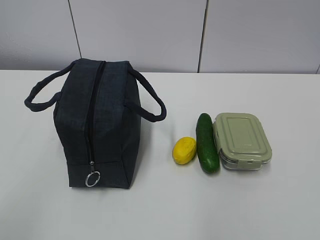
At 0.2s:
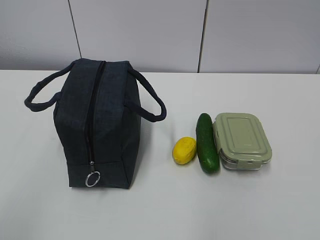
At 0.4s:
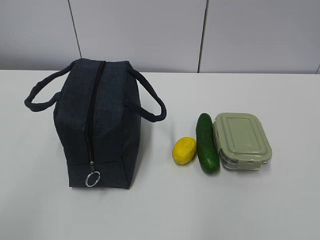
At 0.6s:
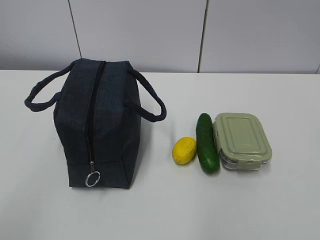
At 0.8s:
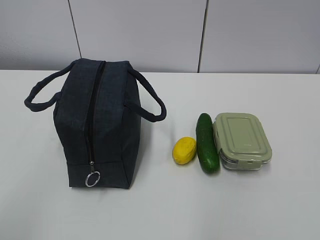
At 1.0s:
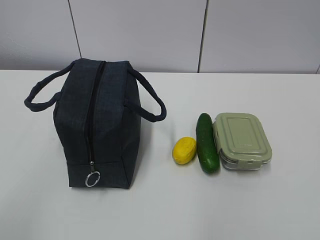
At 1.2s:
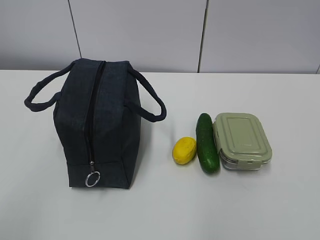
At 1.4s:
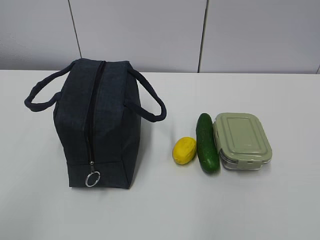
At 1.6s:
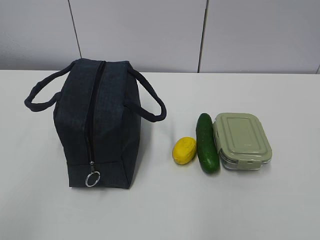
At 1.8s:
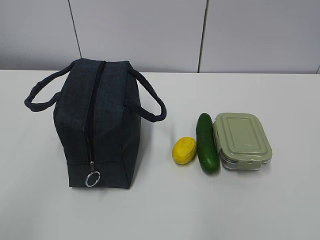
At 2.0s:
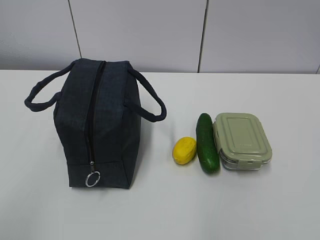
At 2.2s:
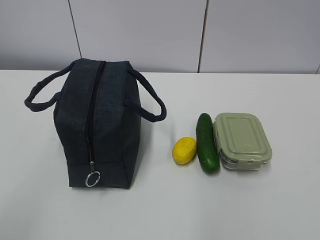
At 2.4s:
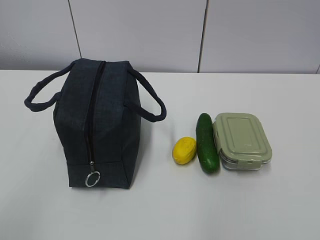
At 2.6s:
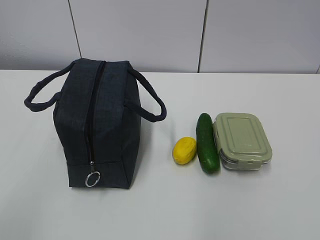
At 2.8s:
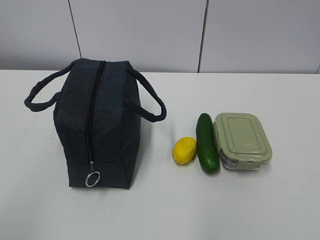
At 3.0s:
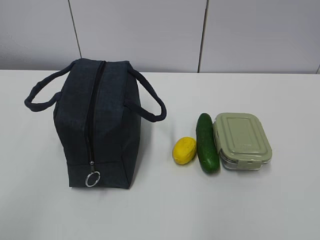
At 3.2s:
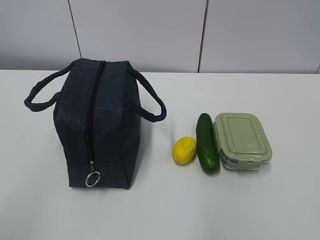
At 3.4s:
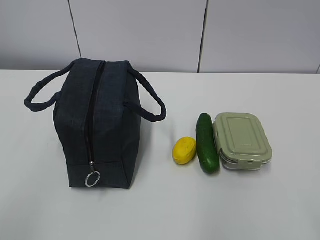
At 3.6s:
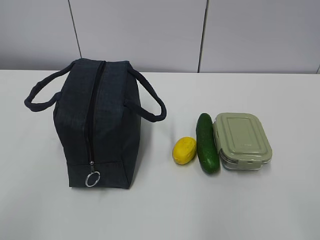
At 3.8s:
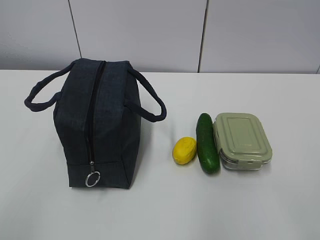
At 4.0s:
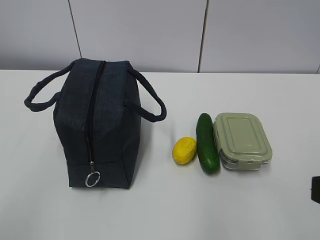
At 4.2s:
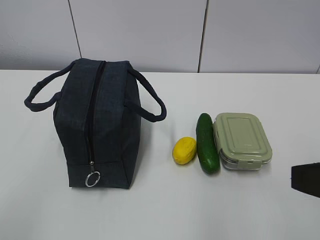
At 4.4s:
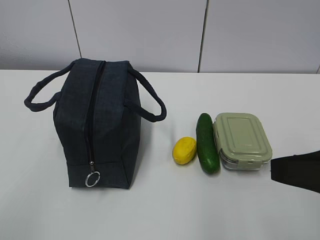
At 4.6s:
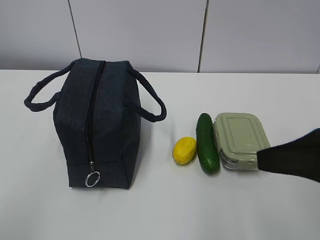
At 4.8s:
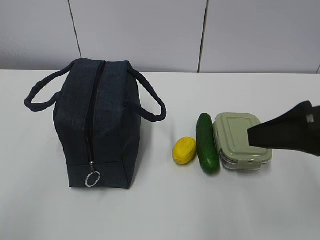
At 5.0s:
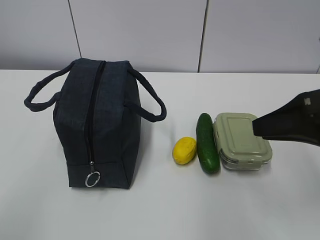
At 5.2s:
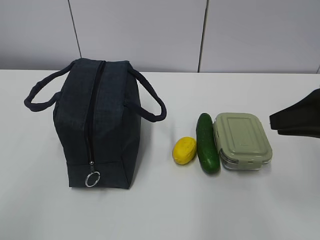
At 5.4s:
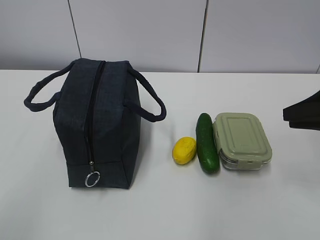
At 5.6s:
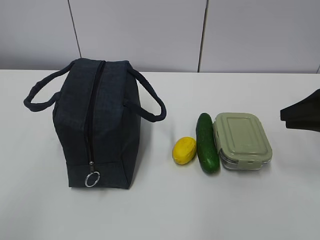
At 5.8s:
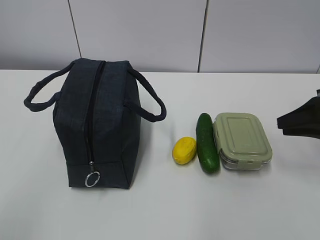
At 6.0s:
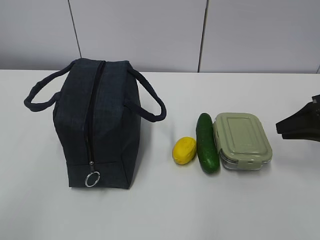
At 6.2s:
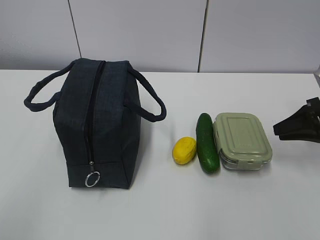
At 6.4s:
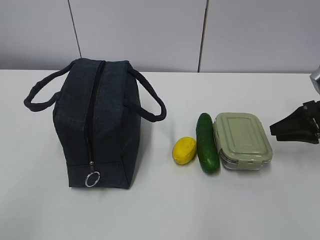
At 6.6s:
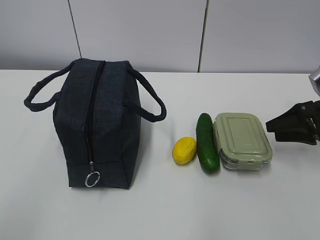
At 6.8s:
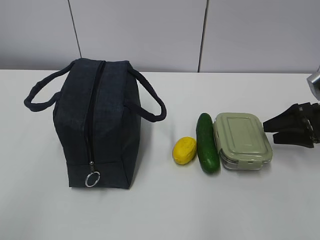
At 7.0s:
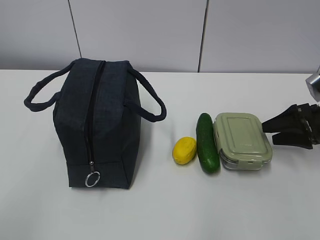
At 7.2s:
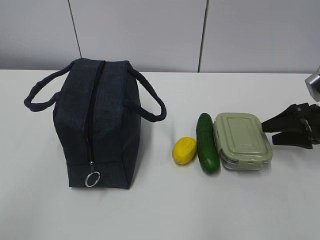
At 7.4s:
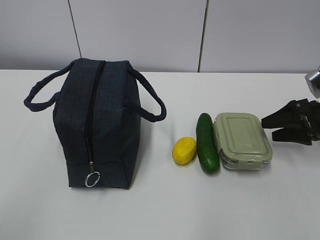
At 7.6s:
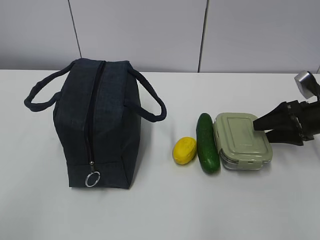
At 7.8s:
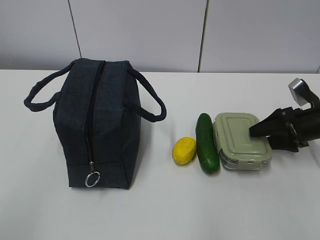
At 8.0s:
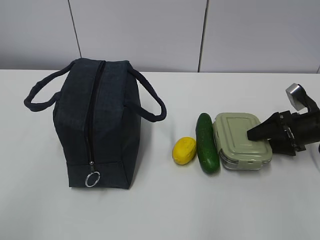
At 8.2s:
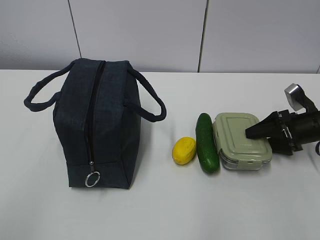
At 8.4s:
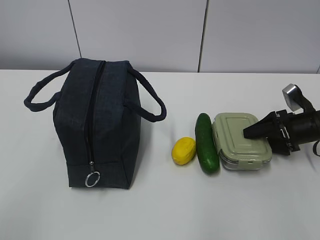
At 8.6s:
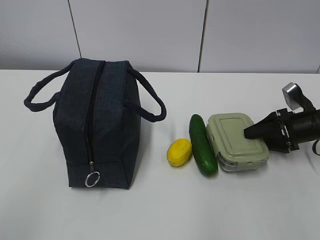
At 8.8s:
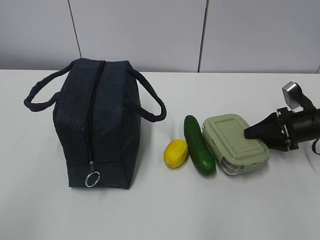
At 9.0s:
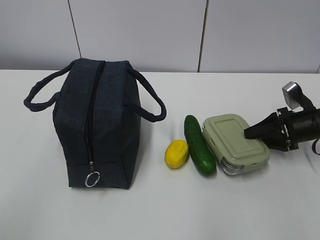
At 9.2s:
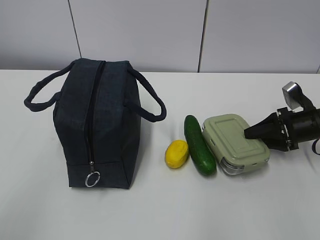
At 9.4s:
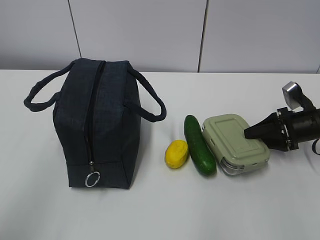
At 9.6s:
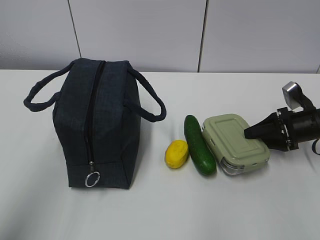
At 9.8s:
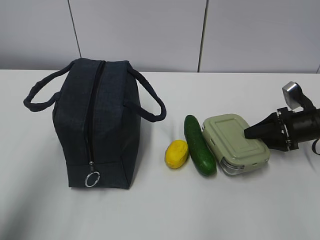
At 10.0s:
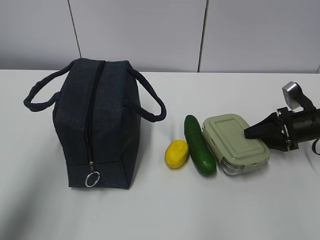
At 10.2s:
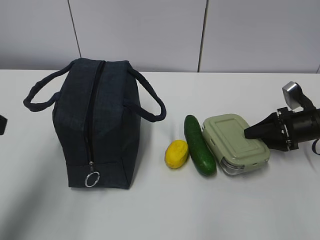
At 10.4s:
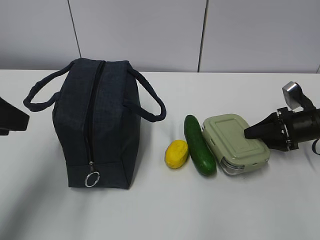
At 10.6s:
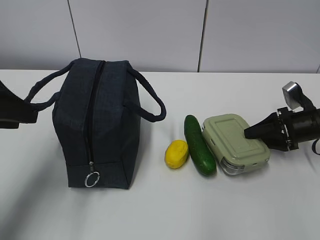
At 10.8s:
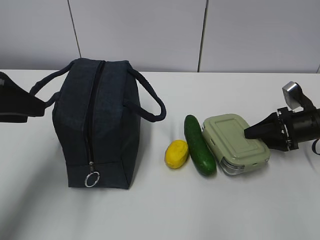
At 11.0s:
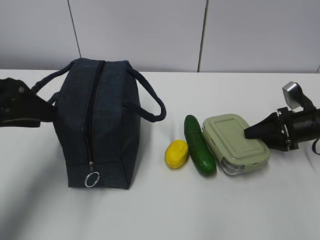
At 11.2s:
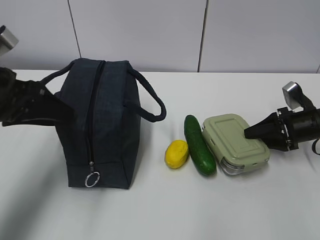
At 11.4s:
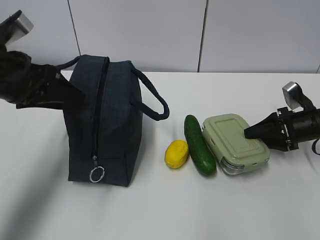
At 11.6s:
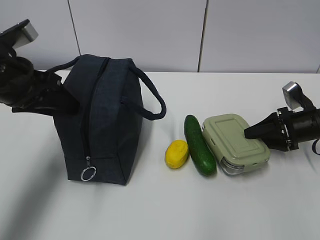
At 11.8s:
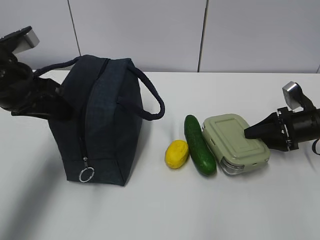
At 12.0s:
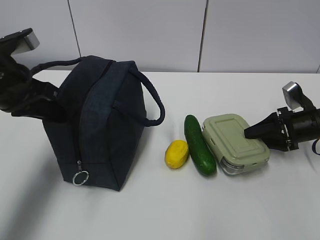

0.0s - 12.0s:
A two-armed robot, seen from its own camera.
Step, 0.0s - 10.6s: Grab the lunch box with your right hand.
3.0s - 4.4s: The right gripper heads forward, covering some 15 cm.
4.4s - 6.0s: The right gripper heads forward, to the right and downward, covering about 25 cm.
6.0s - 7.6s: The right gripper shifts some 5 cm downward, and opens up.
7.6s - 9.0s: The grippers make only small movements.
9.0s - 10.4s: The left gripper travels forward by about 20 cm.
10.4s - 12.0s: The left gripper goes some 10 cm forward, and closes.

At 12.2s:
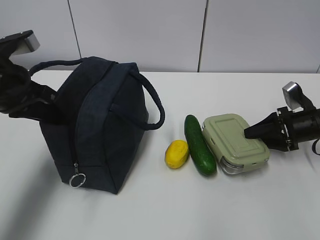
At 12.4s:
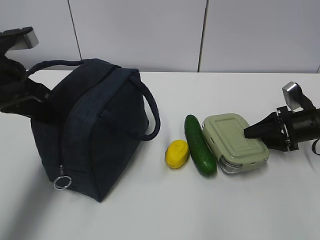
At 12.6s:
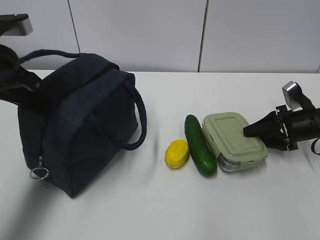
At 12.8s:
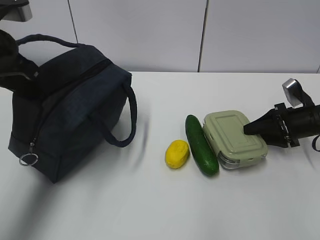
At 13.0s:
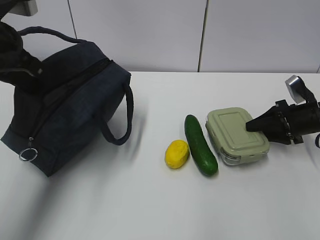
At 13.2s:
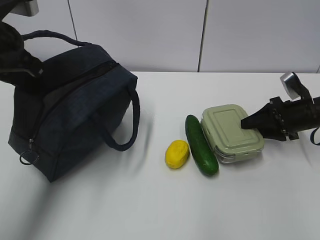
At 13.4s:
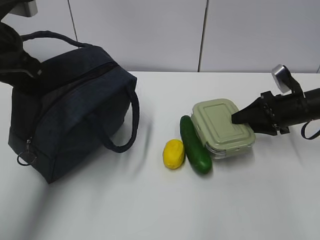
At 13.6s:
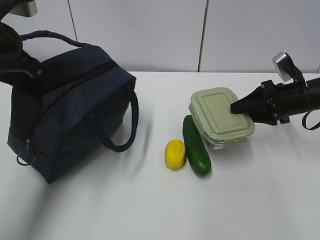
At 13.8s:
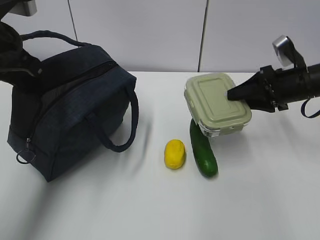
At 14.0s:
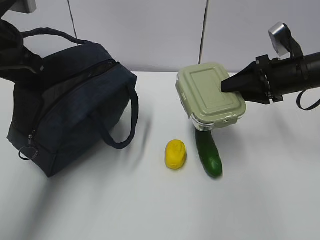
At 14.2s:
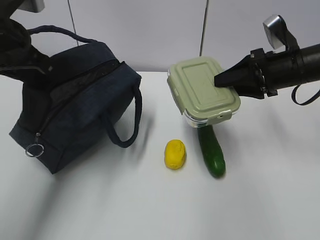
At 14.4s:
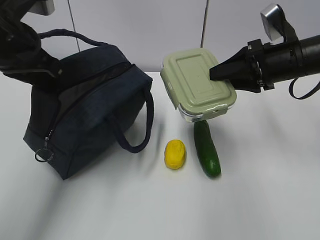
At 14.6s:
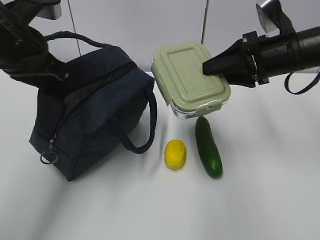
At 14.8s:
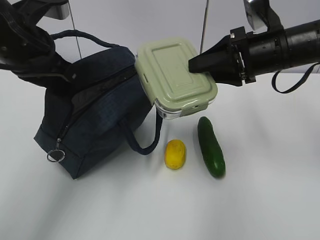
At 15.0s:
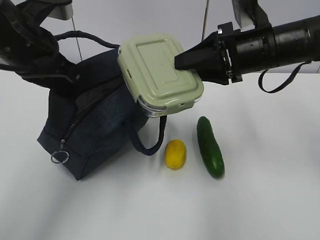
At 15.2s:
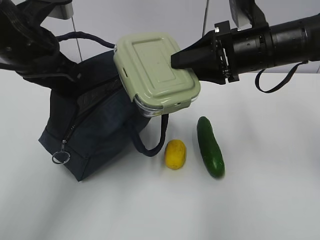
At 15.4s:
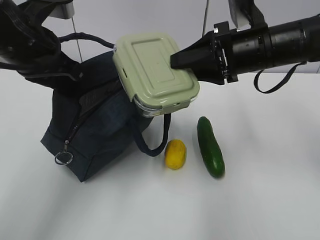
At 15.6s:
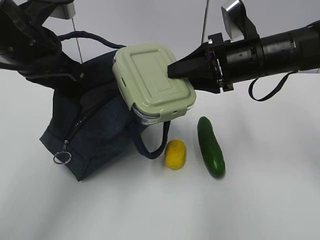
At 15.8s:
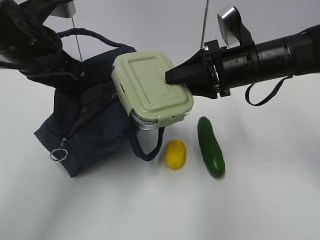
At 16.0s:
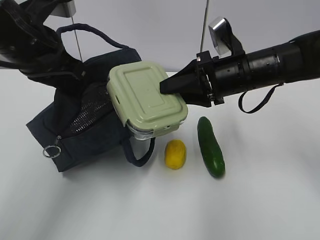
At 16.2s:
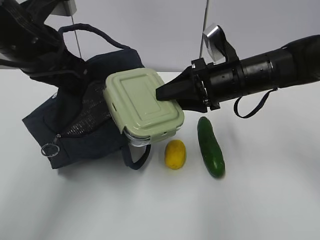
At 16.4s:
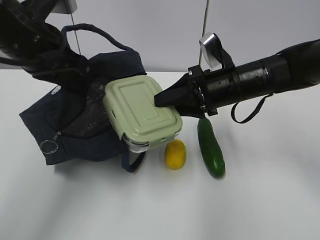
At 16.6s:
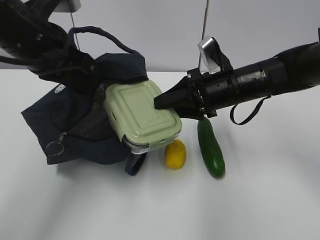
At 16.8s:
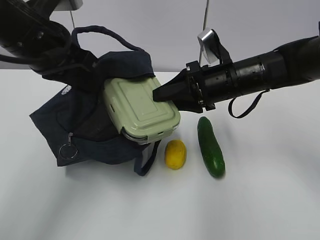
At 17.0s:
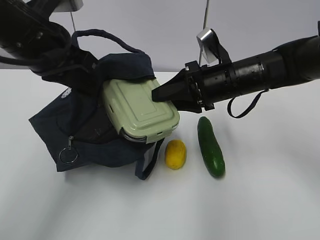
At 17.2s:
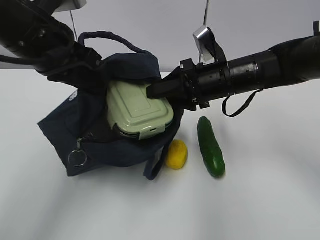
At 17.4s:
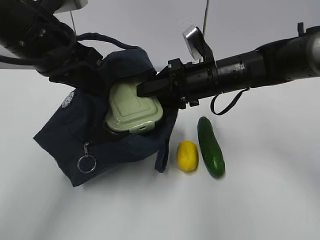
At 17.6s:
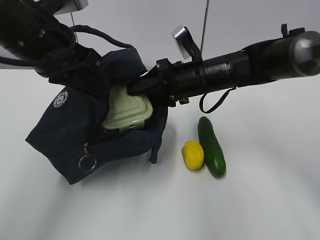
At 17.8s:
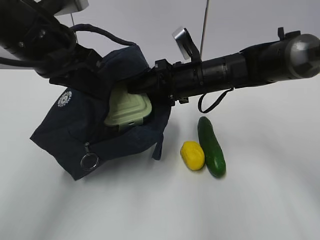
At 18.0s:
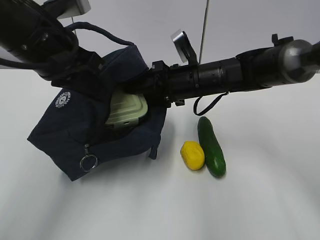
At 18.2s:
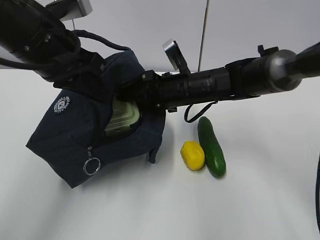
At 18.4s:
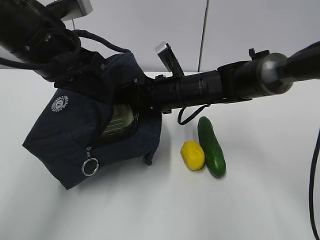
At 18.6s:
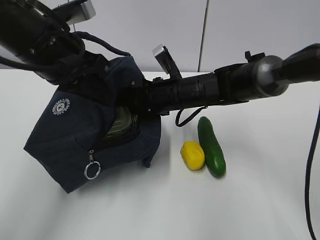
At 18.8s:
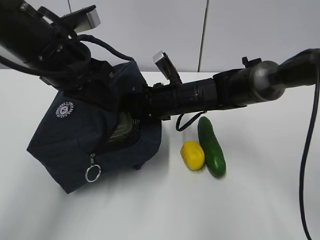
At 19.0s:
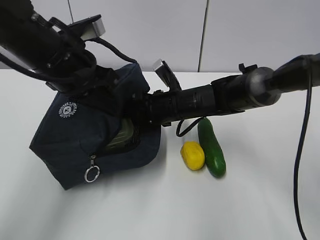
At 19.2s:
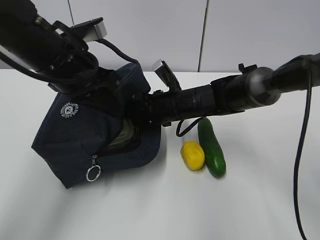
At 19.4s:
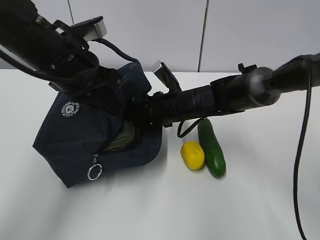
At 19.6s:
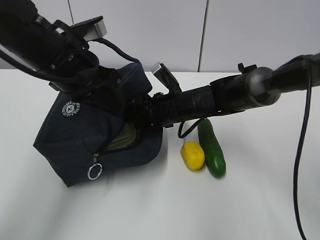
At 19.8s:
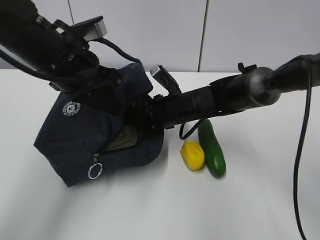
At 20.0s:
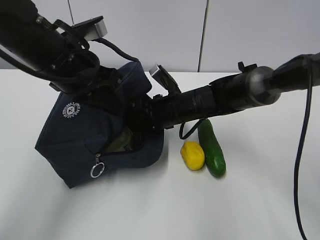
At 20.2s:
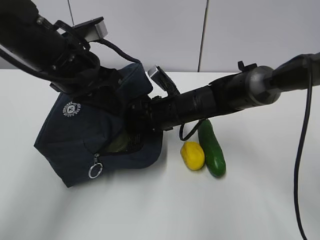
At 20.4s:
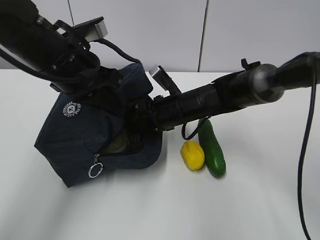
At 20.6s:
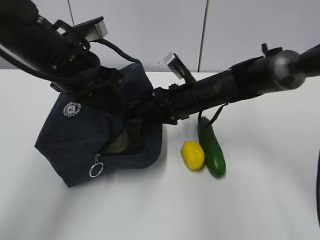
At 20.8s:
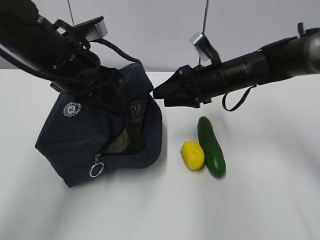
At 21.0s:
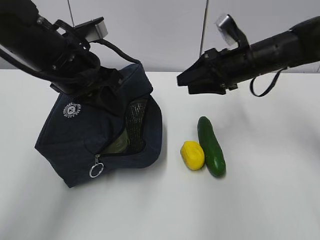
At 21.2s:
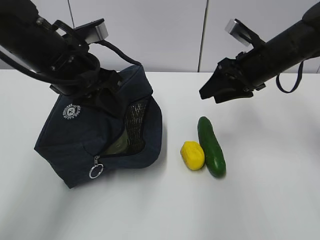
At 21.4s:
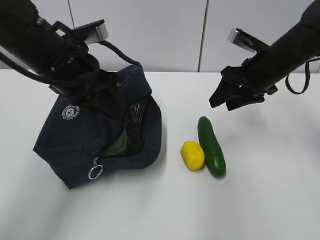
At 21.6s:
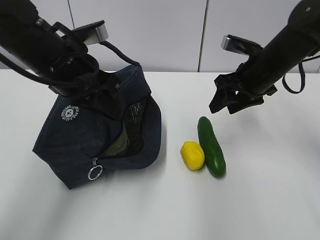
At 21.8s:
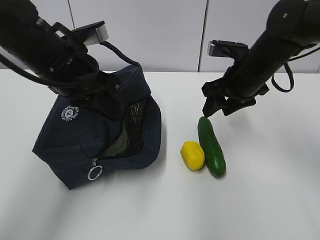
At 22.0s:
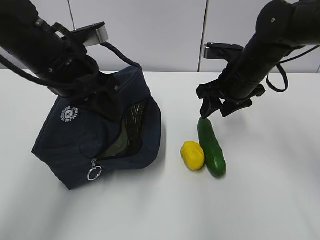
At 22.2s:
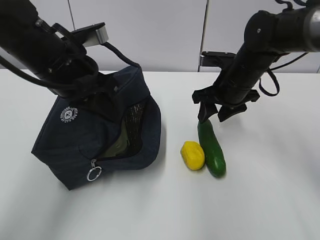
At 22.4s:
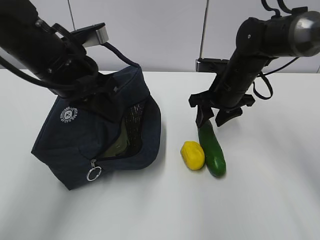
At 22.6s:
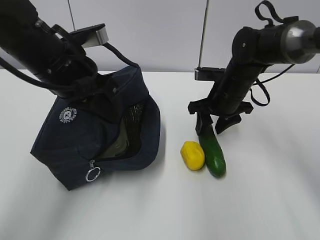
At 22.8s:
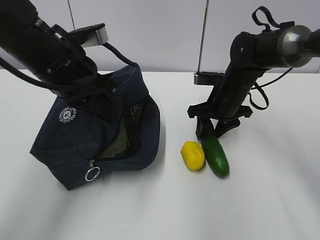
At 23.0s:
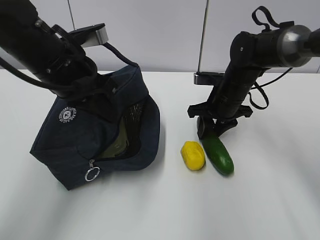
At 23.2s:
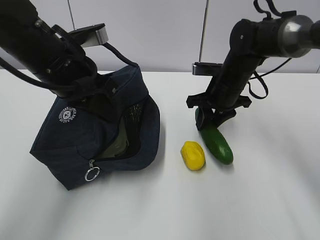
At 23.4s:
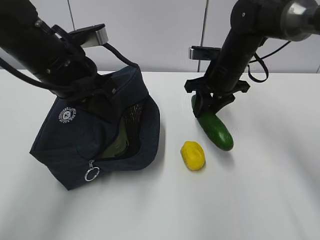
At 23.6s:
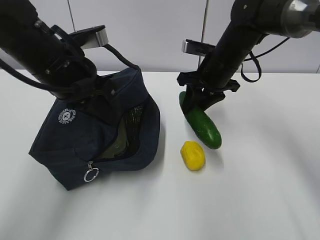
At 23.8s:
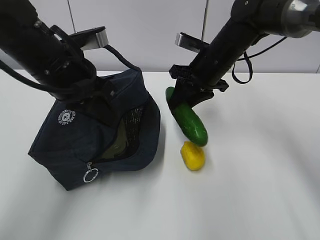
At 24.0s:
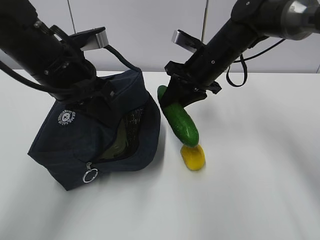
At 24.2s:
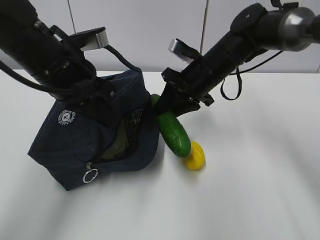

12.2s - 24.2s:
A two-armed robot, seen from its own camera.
Step, 13.0s - 16.8s: Place it into the bag with your right hand.
Step, 17.0s - 19.0s: Grab the cucumber with your right hand.
Step, 19.2s - 21.8s: Place it into the bag with your right hand.
12.2s - 13.8s: The right gripper goes some 10 cm upward and to the left. Meanwhile the left gripper travels upward by roughly 5 cm.
13.8s - 15.2s: The right gripper moves to the left and upward, approximately 15 cm; the left gripper moves to the right, approximately 5 cm.
15.2s - 16.6s: The right gripper goes some 5 cm downward.
16.6s - 18.2s: The right gripper travels to the left by some 5 cm.
18.2s - 19.8s: There are only small adjustments of the grippers.
19.8s - 21.2s: The right gripper shifts roughly 20 cm to the right and upward.
21.2s - 22.6s: The right gripper is displaced downward by approximately 10 cm.
22.6s - 24.2s: The right gripper changes place by about 5 cm.
